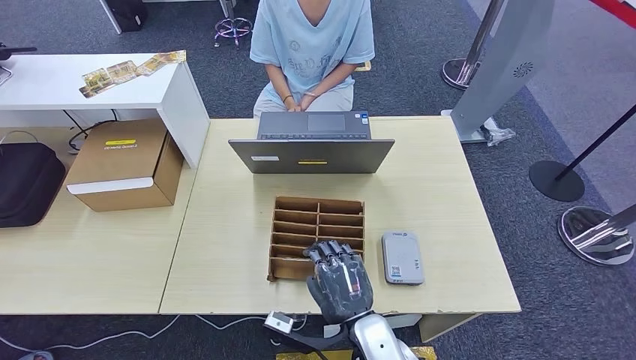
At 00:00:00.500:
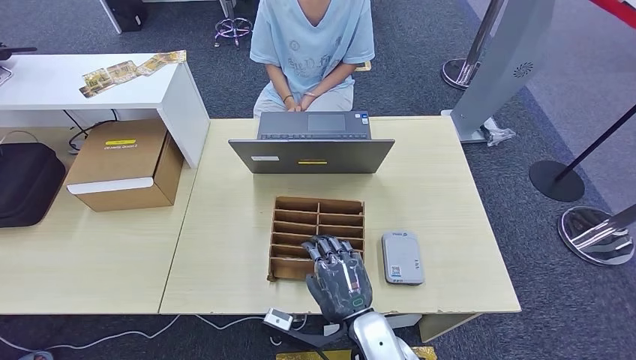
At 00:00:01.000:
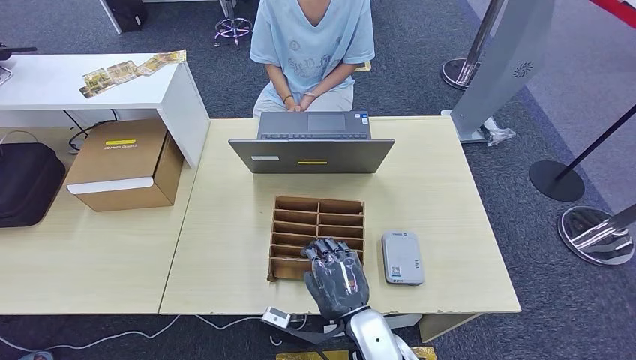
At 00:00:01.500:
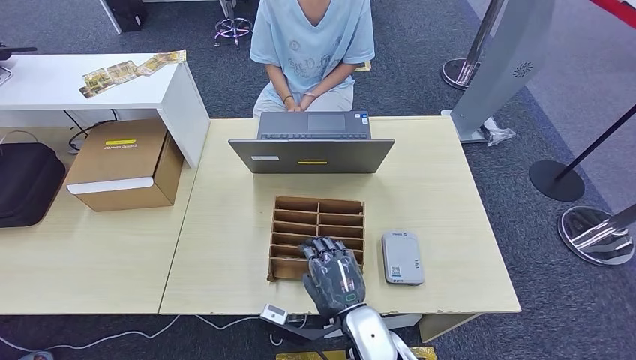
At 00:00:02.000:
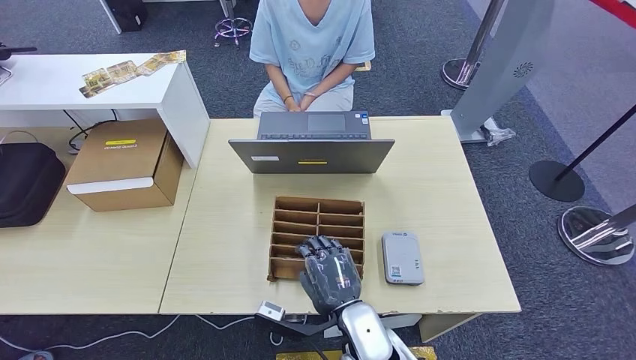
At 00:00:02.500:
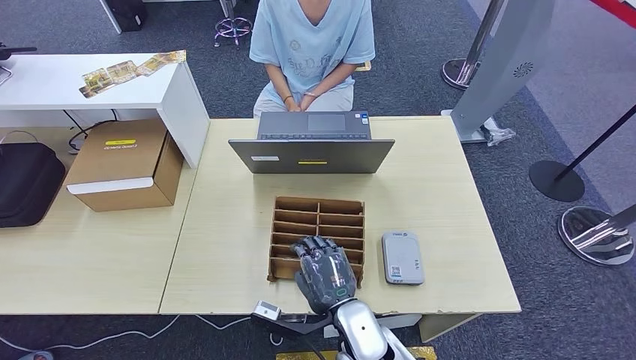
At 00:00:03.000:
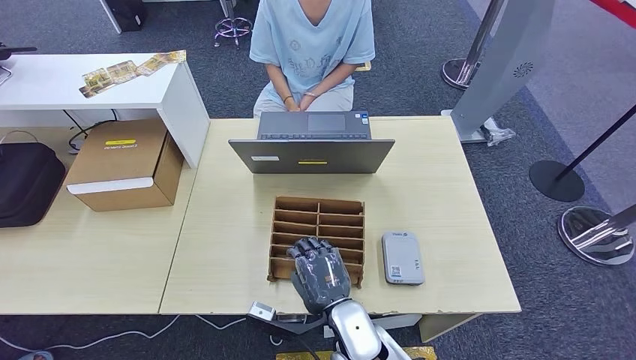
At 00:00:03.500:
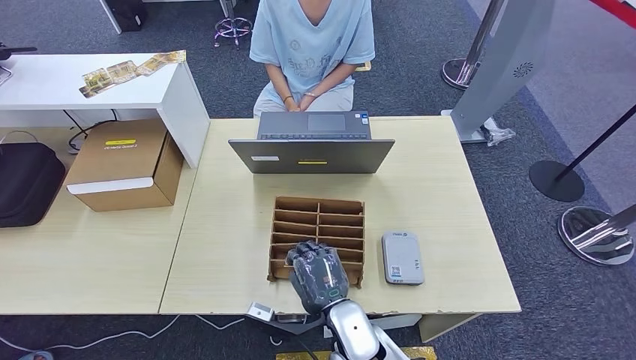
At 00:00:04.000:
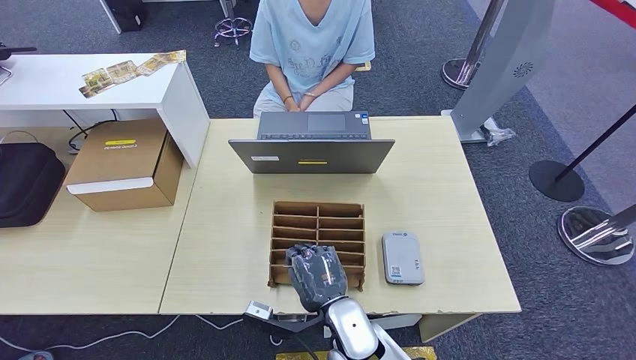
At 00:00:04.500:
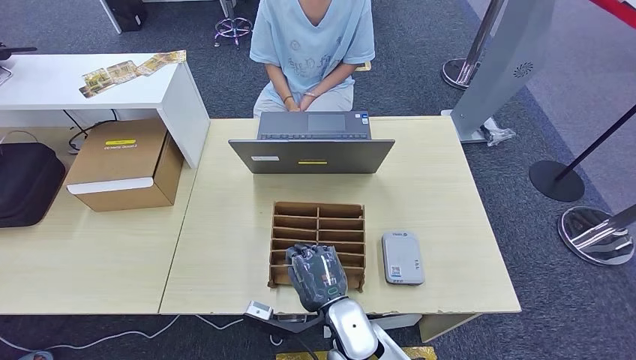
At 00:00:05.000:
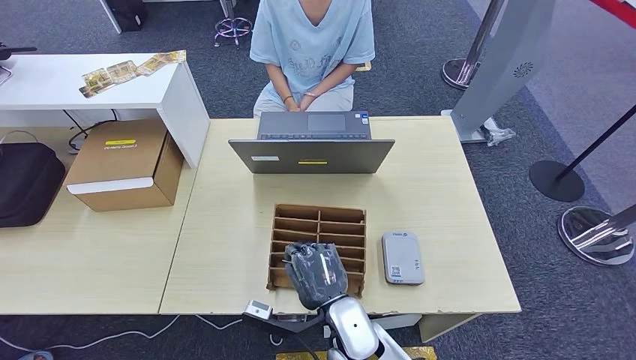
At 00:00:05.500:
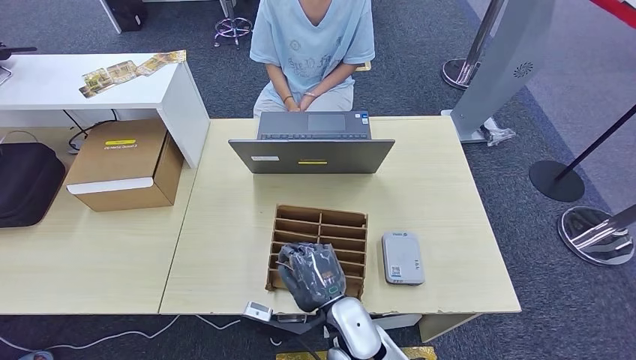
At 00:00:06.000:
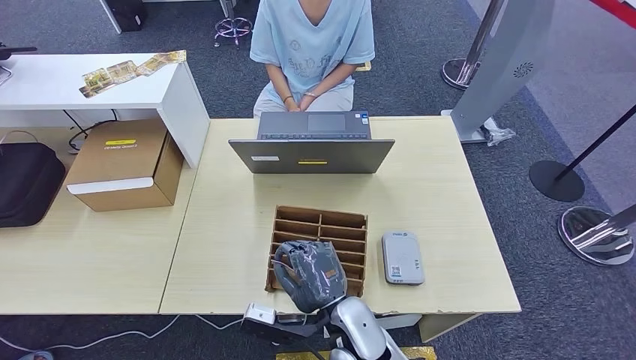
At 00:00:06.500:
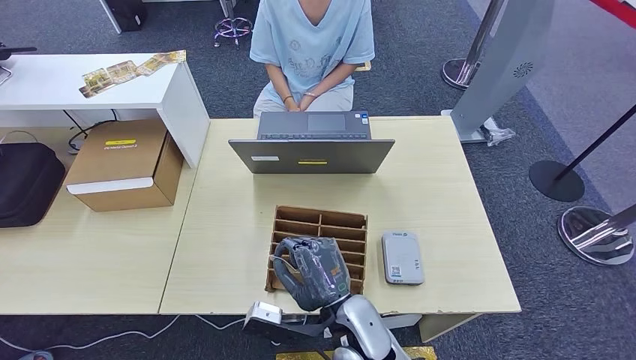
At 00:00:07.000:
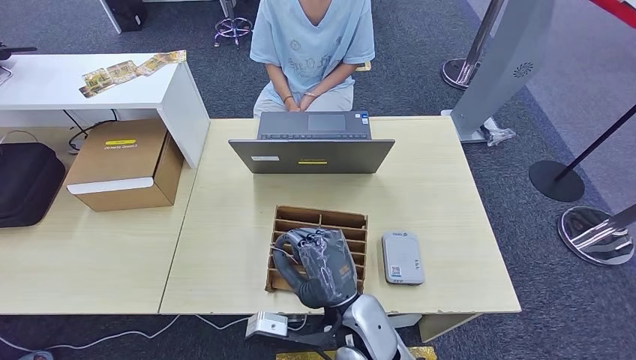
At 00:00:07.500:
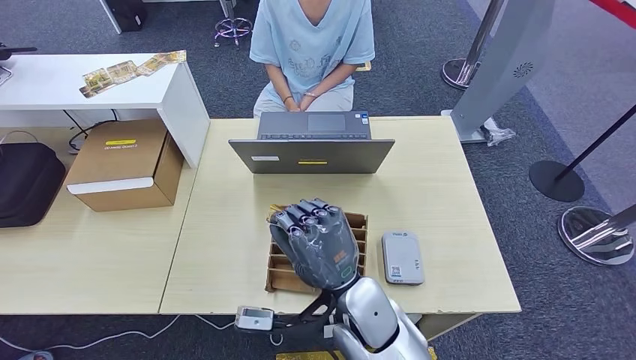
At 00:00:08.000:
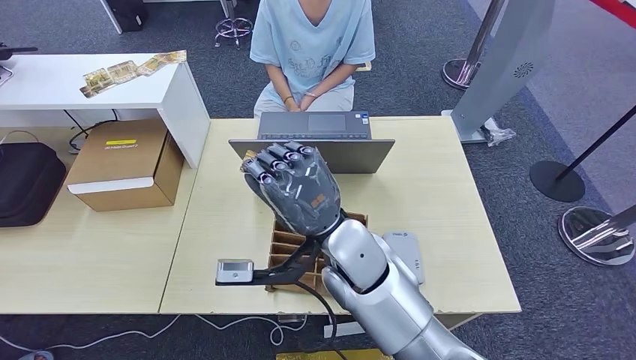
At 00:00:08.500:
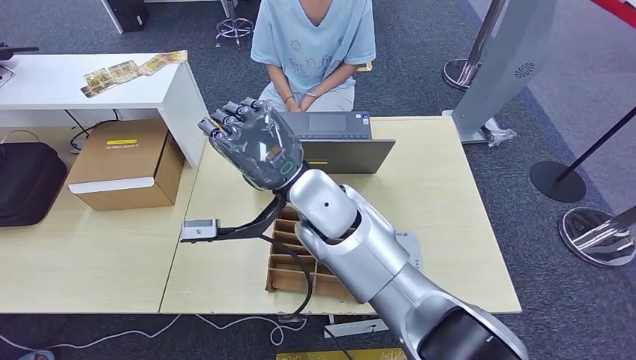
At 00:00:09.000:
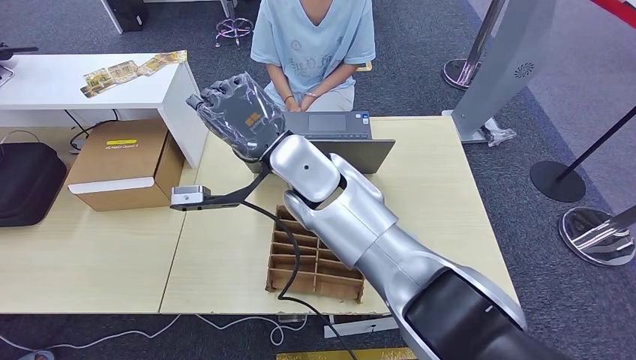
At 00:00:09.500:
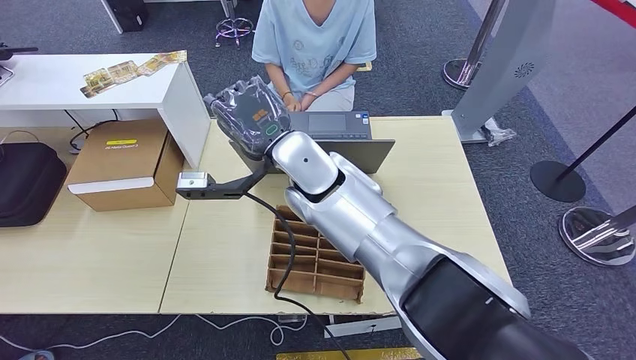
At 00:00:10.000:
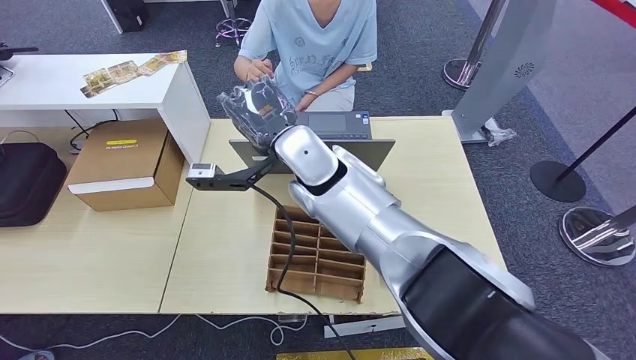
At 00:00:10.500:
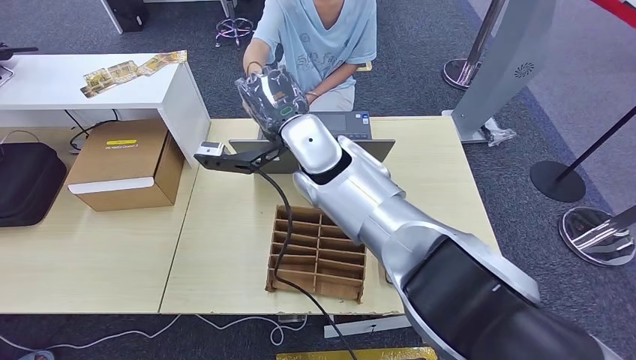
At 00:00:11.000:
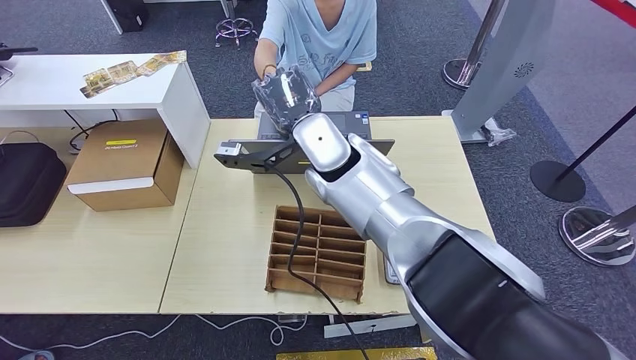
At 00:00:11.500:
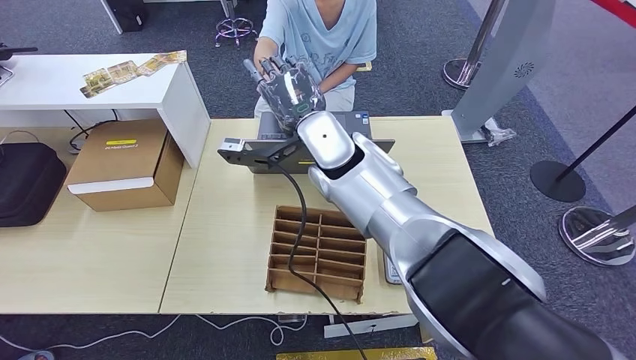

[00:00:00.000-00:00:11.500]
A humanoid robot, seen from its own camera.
Step, 00:00:00.000 to 00:00:08.000: Pick up the room key from the key card box.
00:00:00.000 to 00:00:06.000: The hands stay close to where they were, moving slightly.
00:00:06.000 to 00:00:07.500: The right hand shifts some 5 cm upward.
00:00:07.500 to 00:00:09.500: The right hand is displaced forward, upward and to the left by approximately 20 cm.
00:00:09.500 to 00:00:11.500: The right hand moves approximately 5 cm.

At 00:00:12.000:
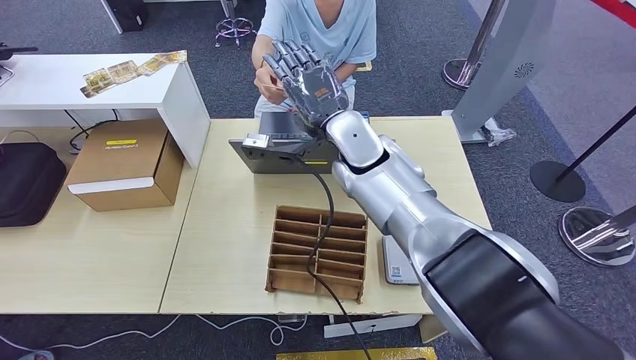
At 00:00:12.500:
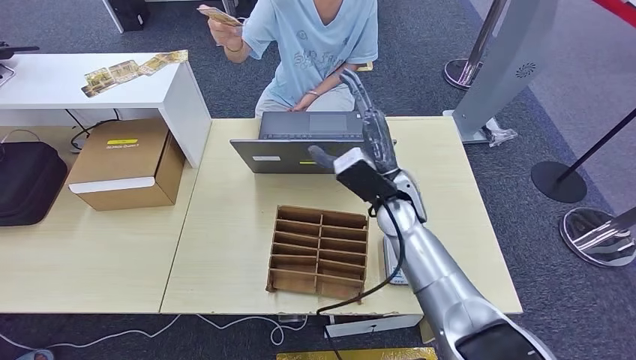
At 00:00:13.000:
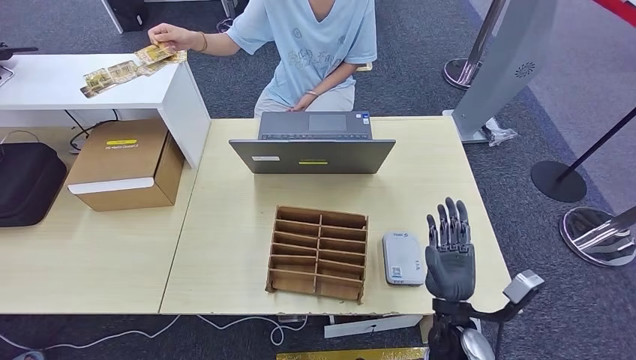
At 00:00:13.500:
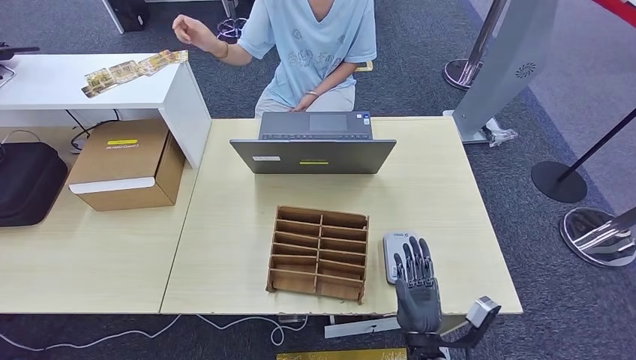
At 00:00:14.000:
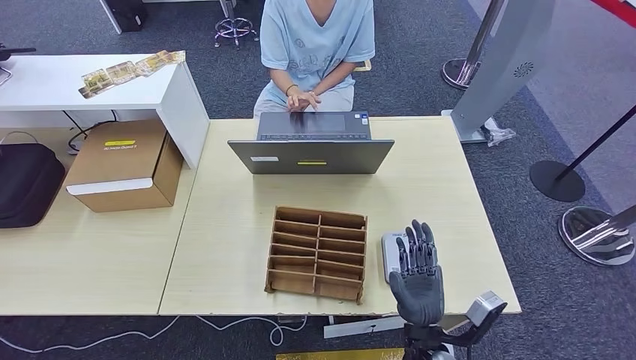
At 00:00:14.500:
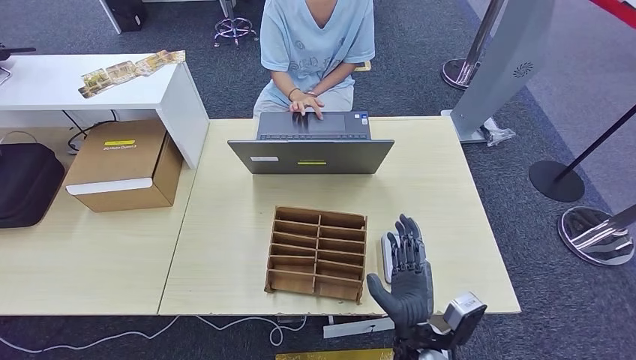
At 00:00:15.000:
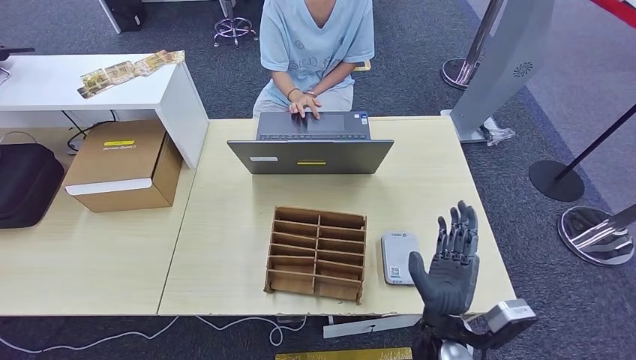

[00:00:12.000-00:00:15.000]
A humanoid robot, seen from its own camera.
Step, 00:00:12.000 to 00:00:15.000: Hand the room key to the person.
00:00:12.000 to 00:00:13.500: The right hand heads downward, backward and to the right, covering roughly 40 cm.
00:00:13.500 to 00:00:15.000: The right hand travels upward by about 10 cm. The left hand shifts approximately 5 cm to the right.
